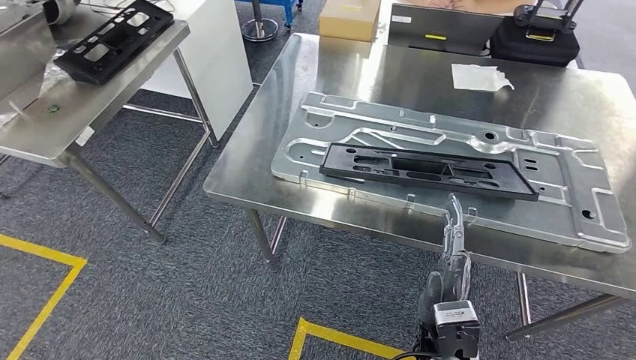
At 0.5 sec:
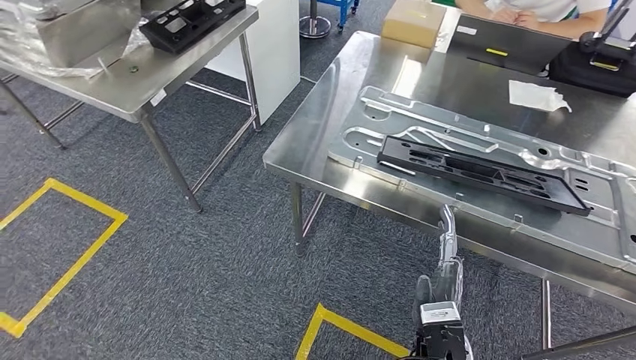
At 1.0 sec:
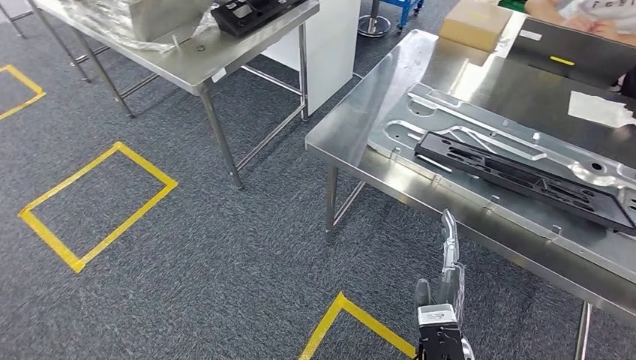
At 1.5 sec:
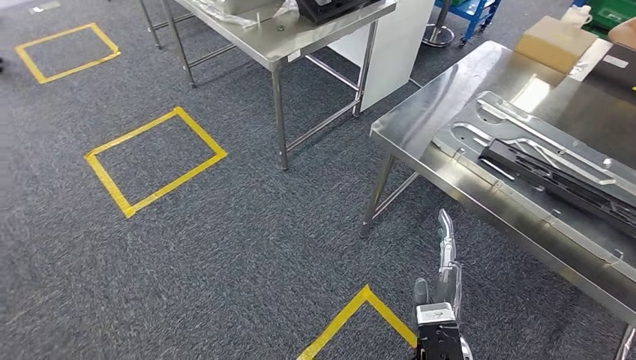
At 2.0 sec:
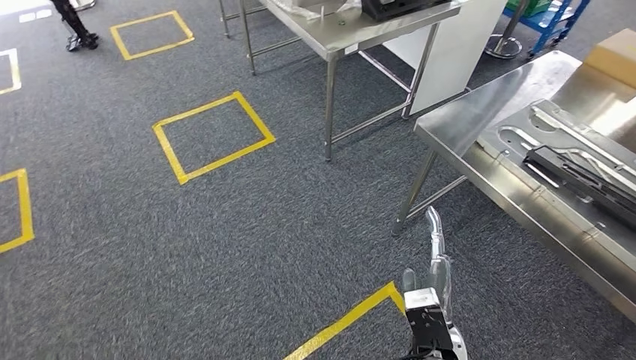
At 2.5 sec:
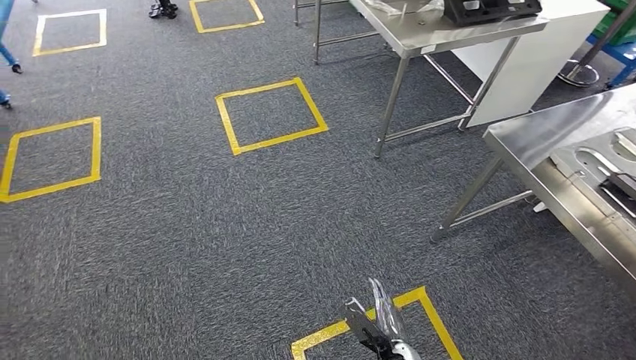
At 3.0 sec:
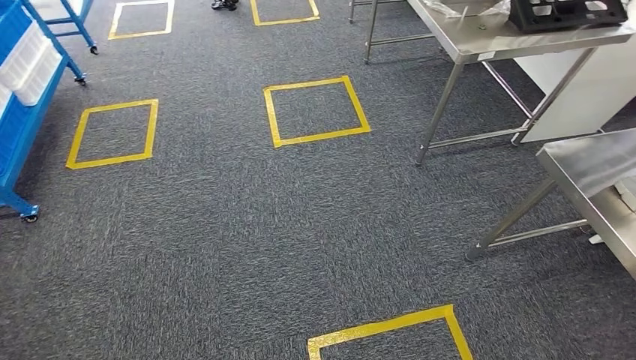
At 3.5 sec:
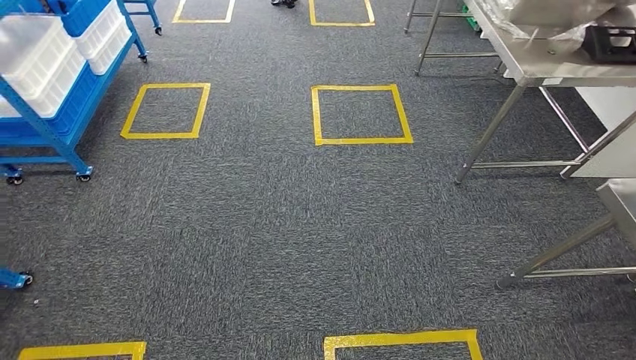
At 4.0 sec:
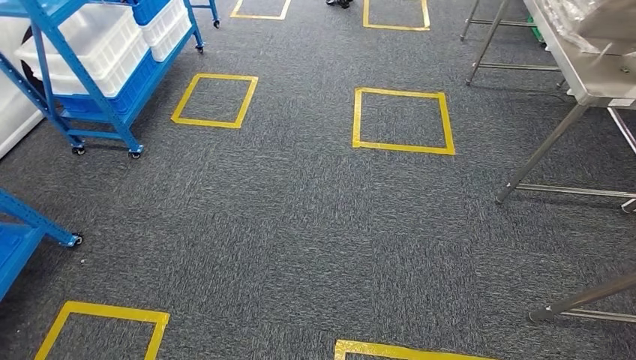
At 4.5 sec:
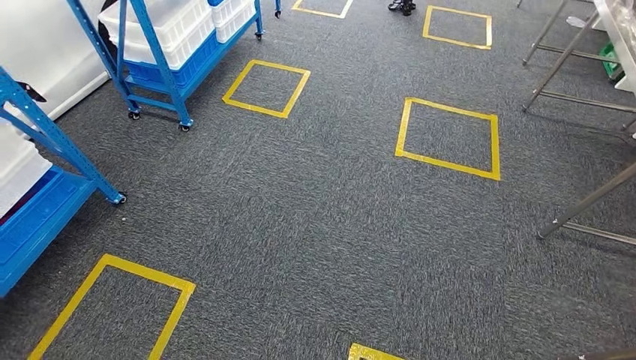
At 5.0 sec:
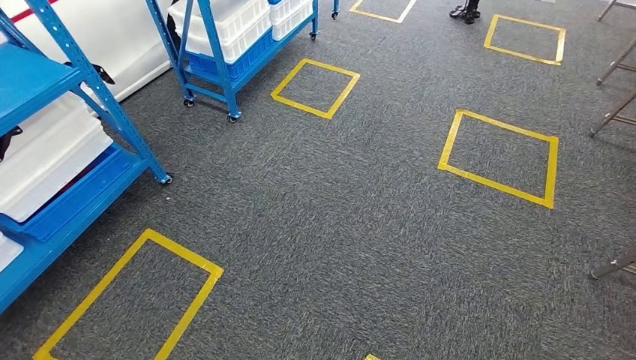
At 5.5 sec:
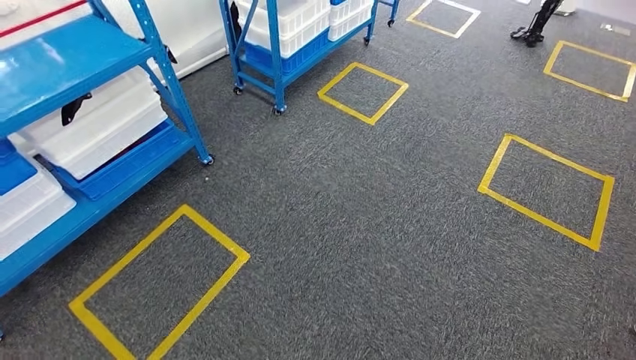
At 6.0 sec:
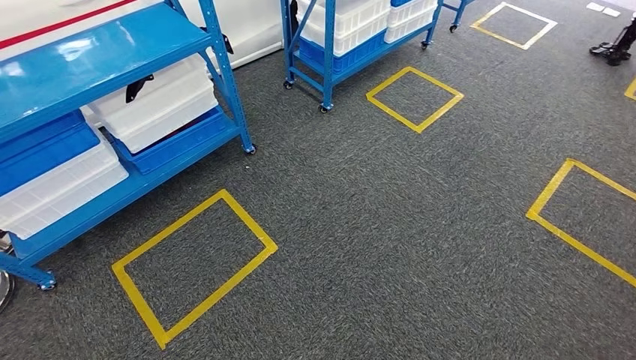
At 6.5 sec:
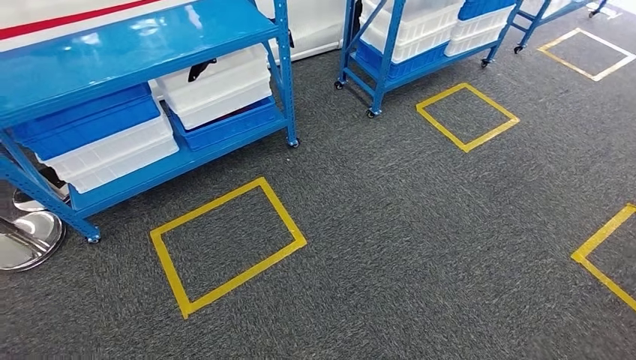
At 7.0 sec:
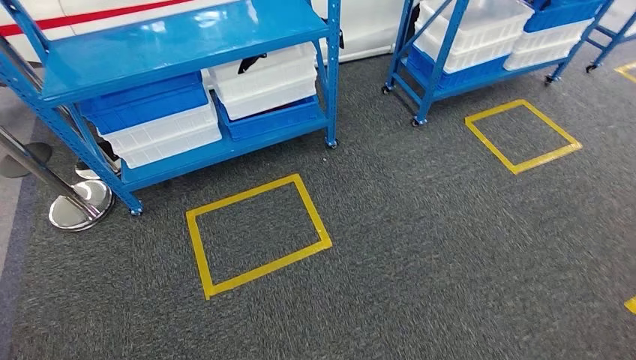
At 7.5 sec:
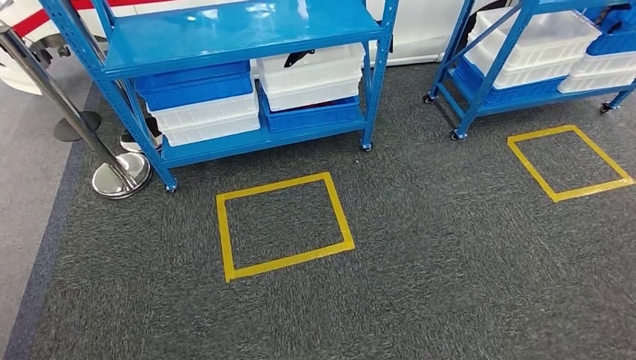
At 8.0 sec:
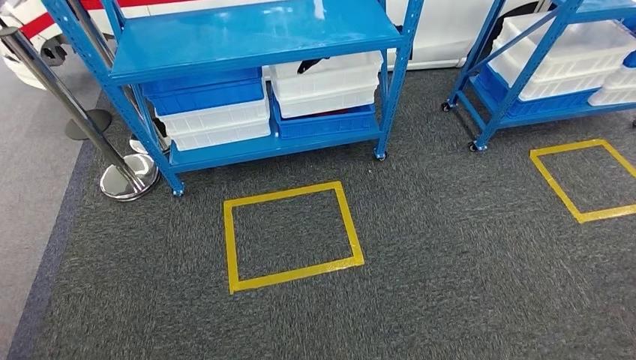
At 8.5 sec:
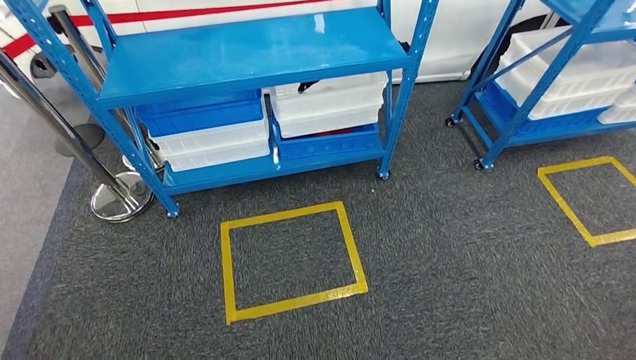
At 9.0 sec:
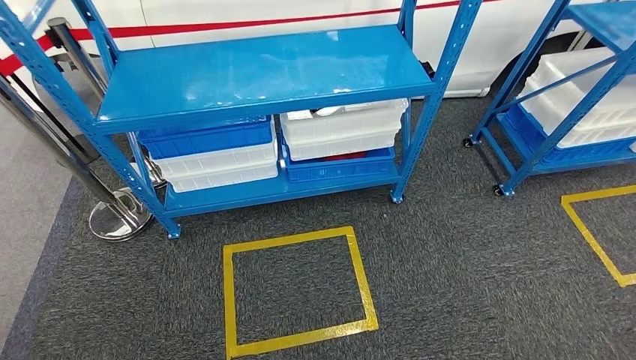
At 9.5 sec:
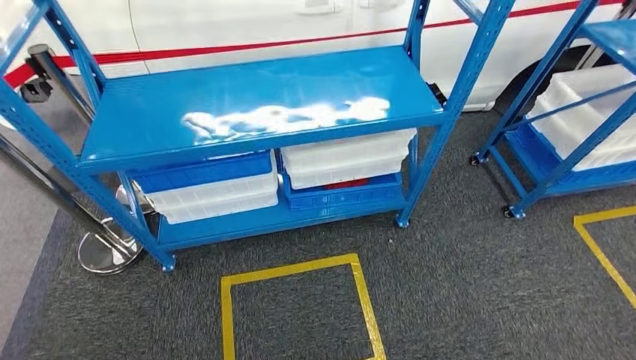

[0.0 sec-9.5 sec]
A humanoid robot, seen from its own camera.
Step, 2.5 sec to 9.5 sec: Return to the initial position at the shelf.
